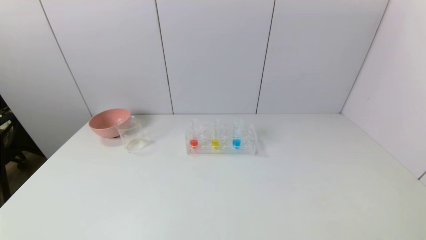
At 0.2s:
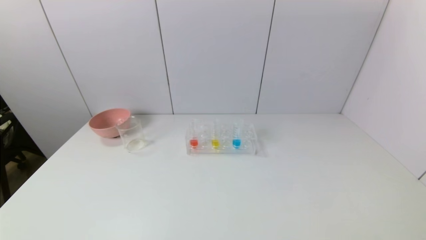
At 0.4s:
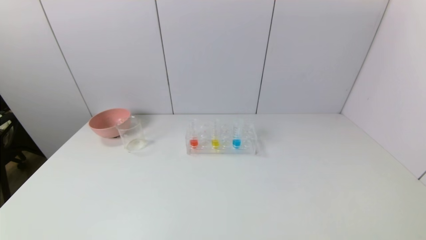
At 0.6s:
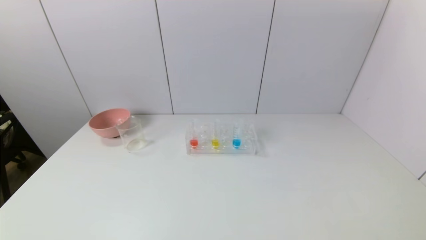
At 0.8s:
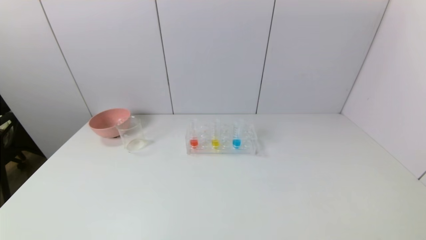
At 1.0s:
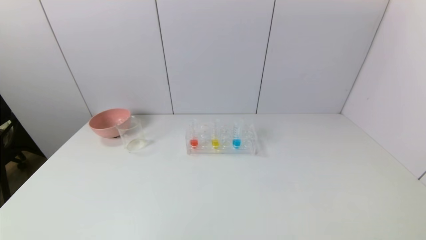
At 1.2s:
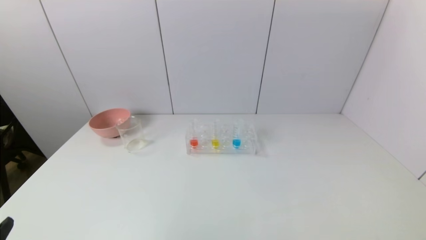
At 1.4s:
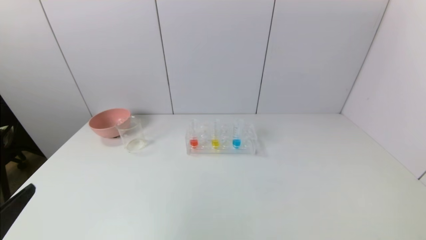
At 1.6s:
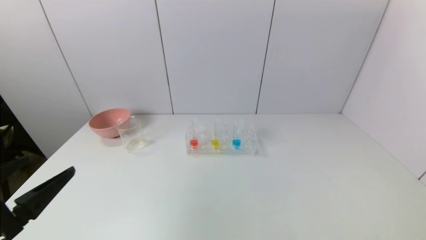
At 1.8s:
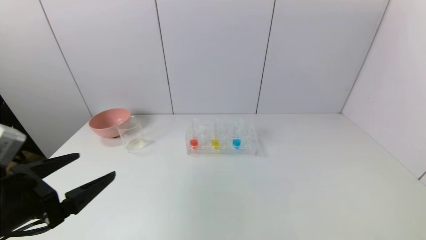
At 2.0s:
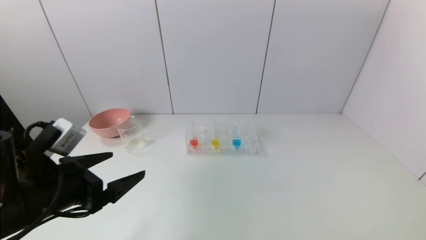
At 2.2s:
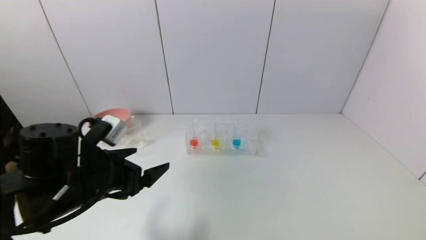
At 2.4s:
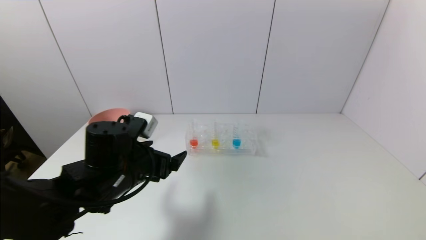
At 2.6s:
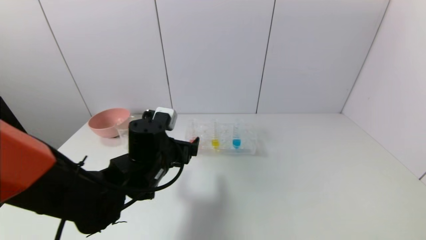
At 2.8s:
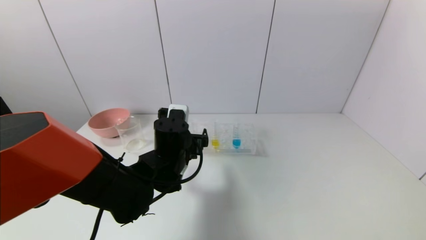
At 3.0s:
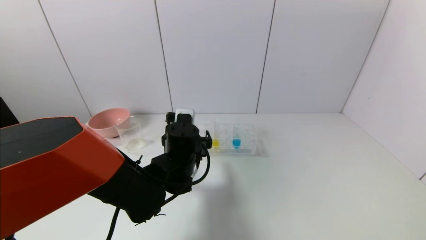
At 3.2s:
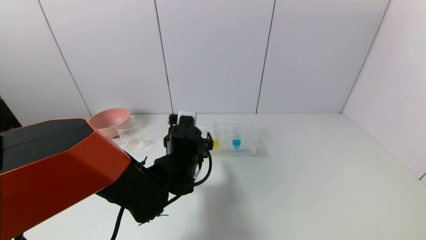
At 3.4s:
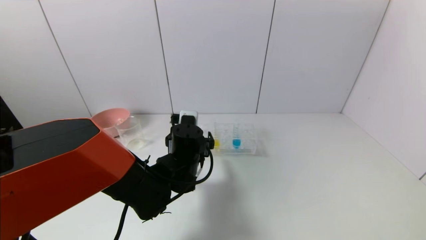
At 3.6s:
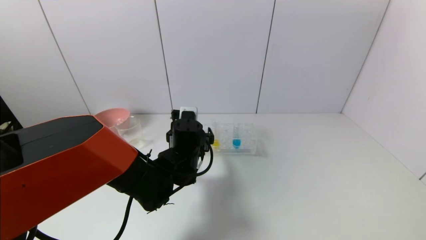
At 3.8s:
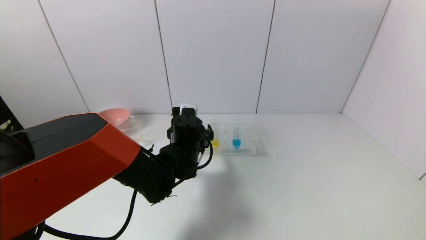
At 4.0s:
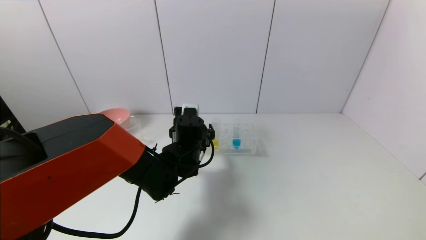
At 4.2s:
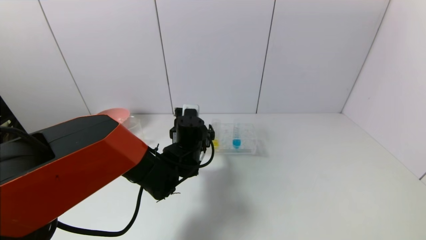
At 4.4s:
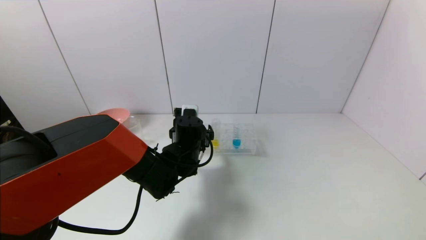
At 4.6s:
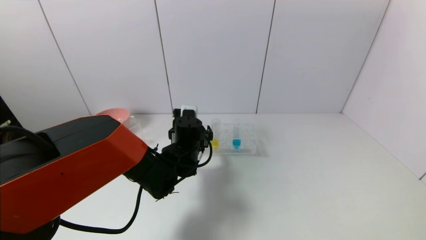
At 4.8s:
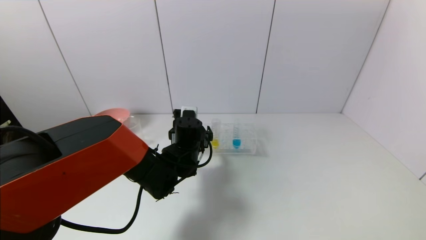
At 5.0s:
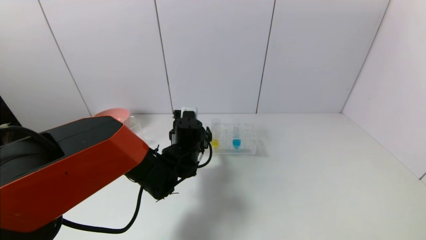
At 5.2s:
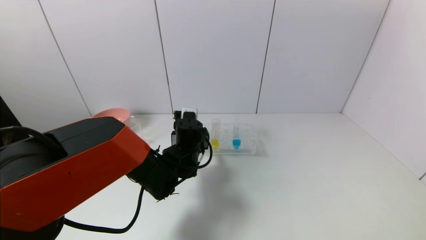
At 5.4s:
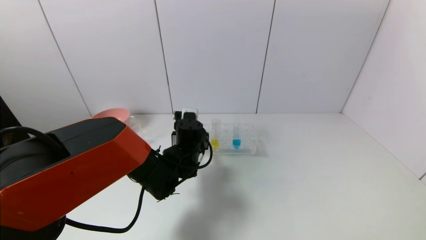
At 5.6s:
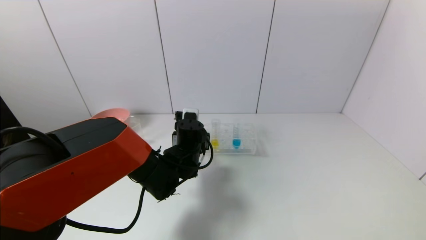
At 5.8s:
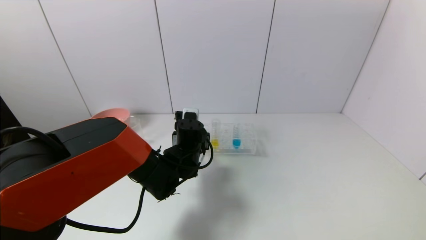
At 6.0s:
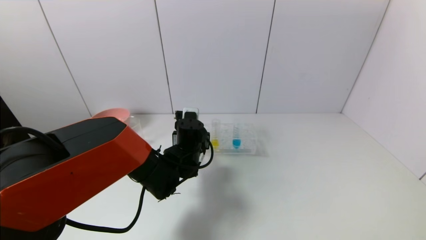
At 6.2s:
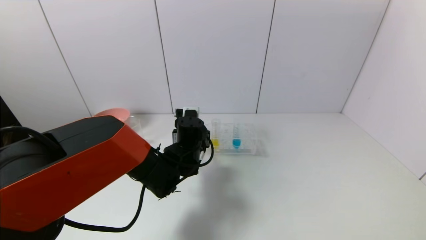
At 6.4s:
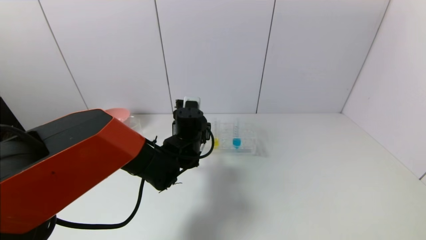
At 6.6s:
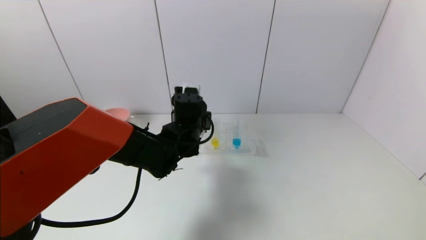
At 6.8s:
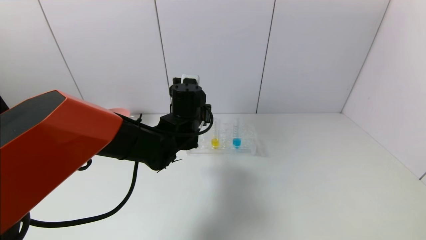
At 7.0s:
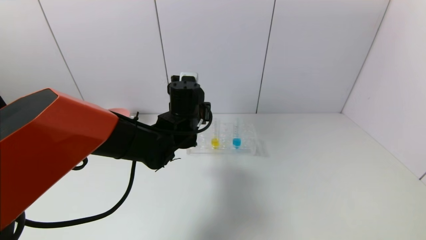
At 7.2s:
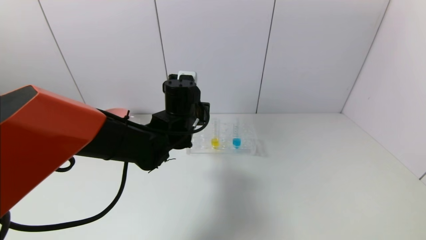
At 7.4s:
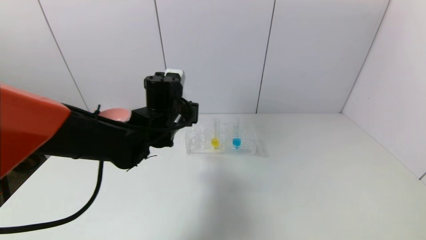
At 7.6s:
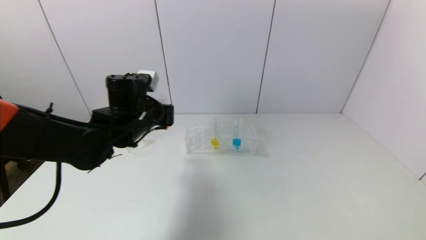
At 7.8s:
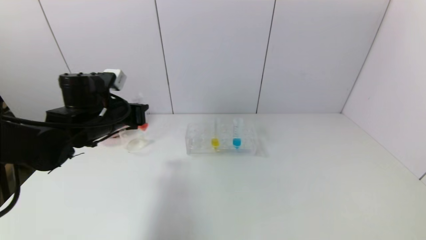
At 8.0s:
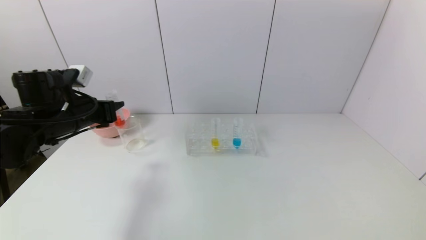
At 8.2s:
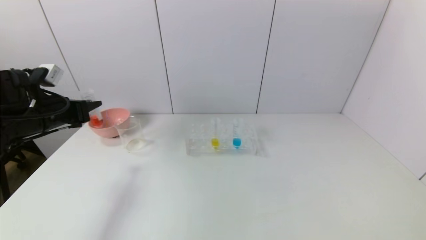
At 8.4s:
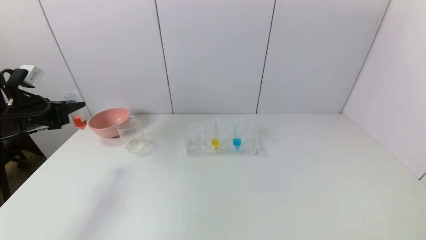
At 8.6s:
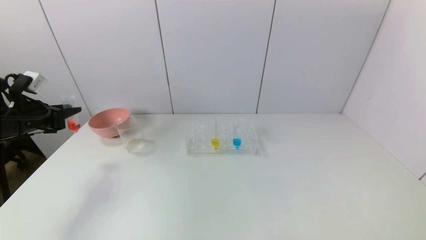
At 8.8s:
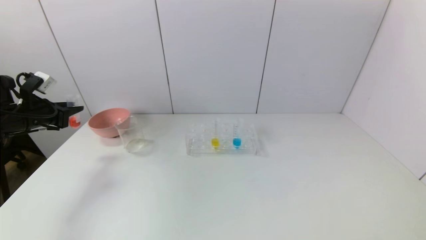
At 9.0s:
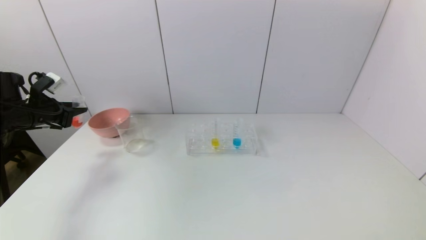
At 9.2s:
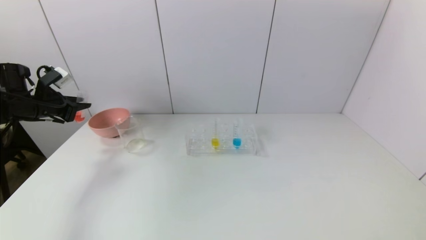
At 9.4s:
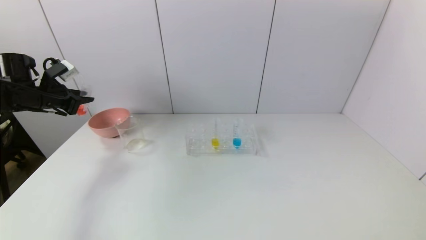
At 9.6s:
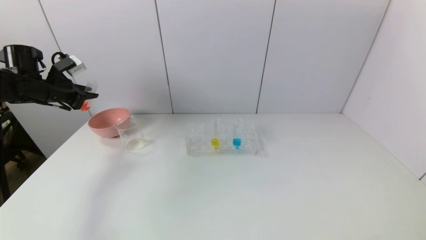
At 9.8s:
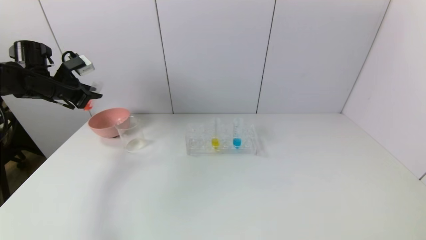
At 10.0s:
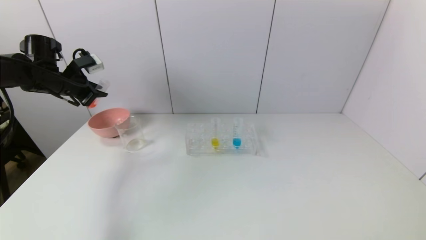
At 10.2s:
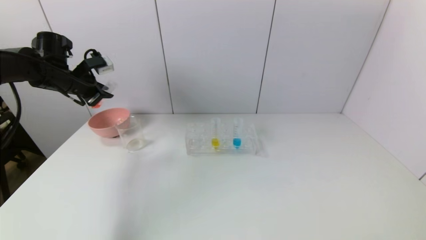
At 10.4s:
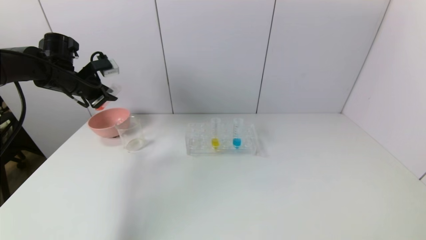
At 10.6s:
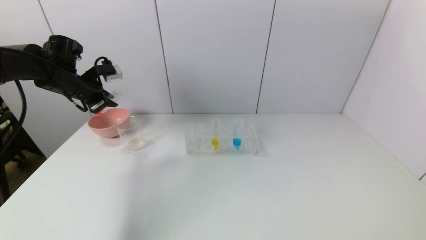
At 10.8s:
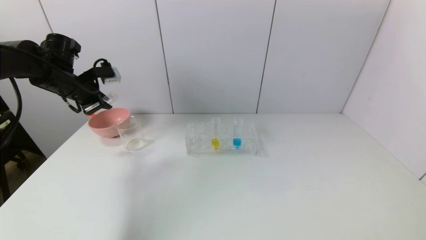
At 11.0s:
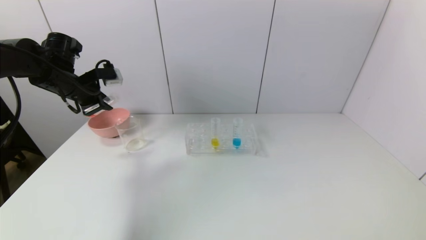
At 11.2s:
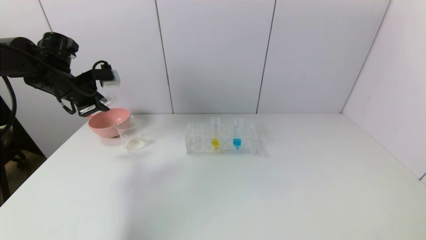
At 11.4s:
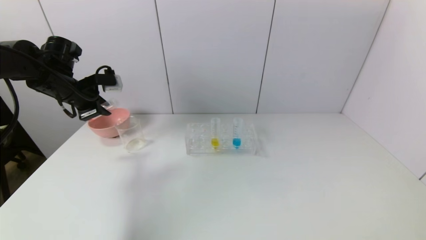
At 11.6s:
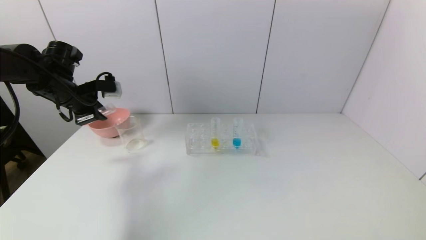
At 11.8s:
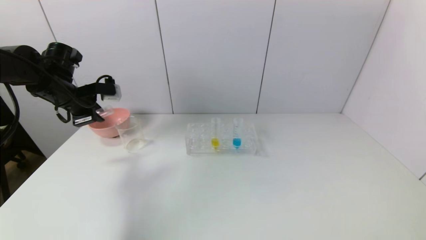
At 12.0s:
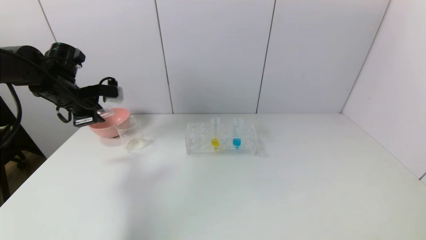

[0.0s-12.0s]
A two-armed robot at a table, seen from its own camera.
Task of the whole recording: pick up the test tube with yellow pigment and the test tube with red pigment by grippers and pour them into the beaker.
Step, 0.0s to 5.8s: Grasp the red reagent with the left gripper.
0.0s to 1.6s: The left gripper shifts roughly 15 cm upward and forward.
1.6s to 3.0s: The left gripper heads to the right and forward, covering roughly 30 cm.
3.0s to 4.4s: The left gripper travels forward by about 5 cm.
4.4s to 6.0s: The left gripper closes.
6.0s to 7.6s: The left gripper moves upward and to the left, about 15 cm.
7.6s to 9.0s: The left gripper heads to the left, covering about 30 cm.
9.0s to 10.4s: The left gripper moves to the right, upward and forward, approximately 15 cm.

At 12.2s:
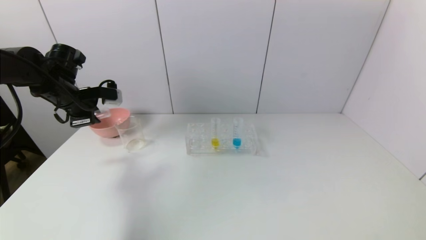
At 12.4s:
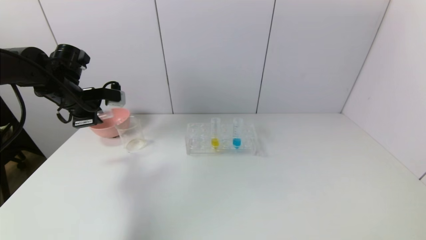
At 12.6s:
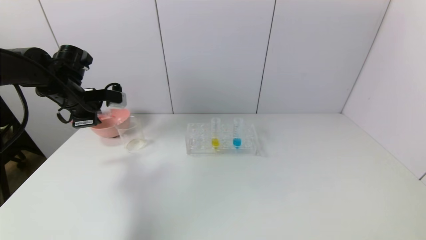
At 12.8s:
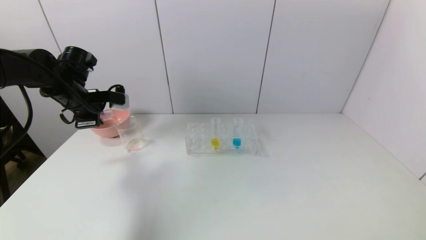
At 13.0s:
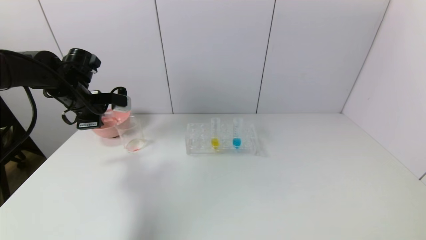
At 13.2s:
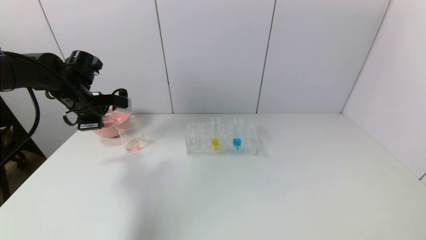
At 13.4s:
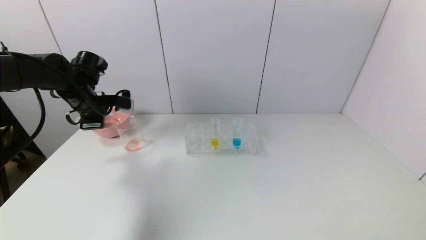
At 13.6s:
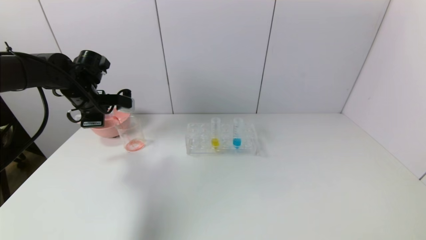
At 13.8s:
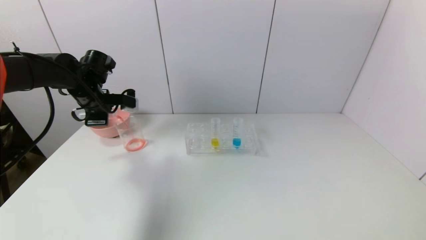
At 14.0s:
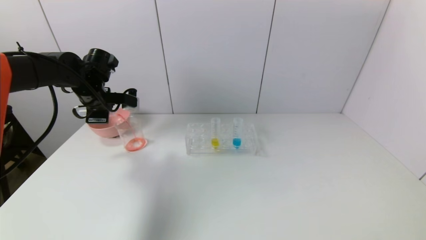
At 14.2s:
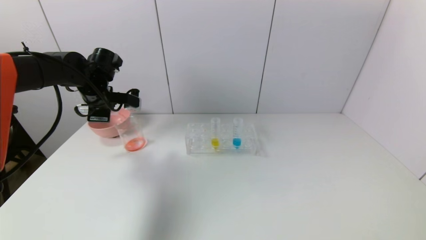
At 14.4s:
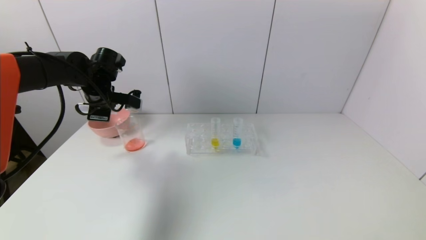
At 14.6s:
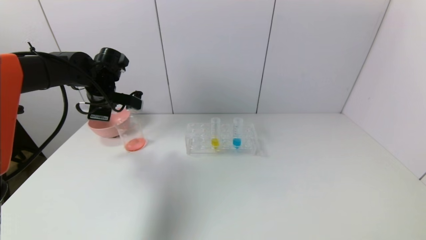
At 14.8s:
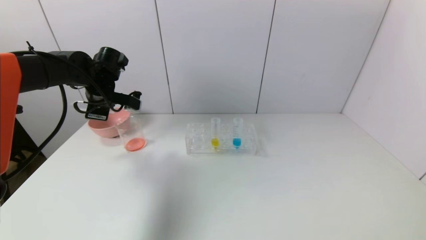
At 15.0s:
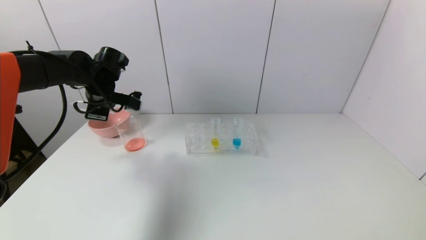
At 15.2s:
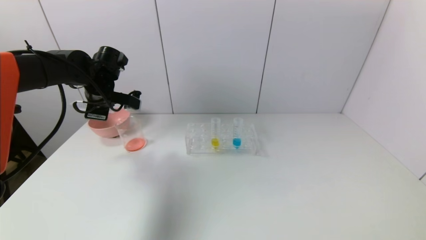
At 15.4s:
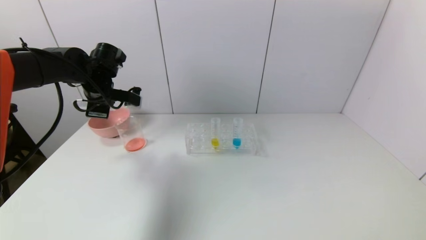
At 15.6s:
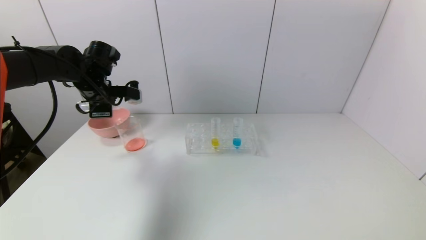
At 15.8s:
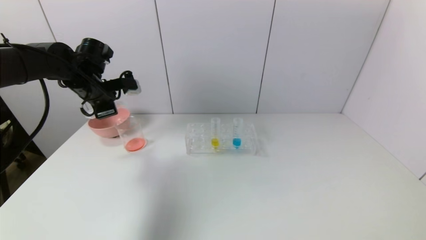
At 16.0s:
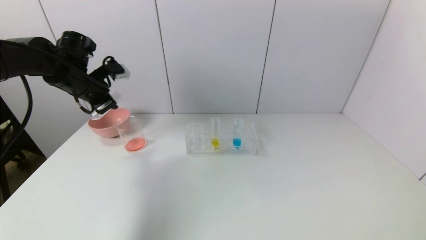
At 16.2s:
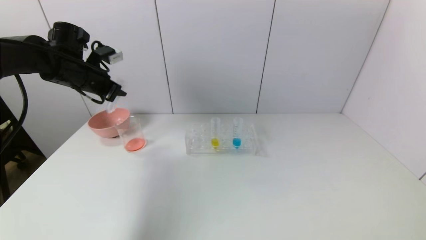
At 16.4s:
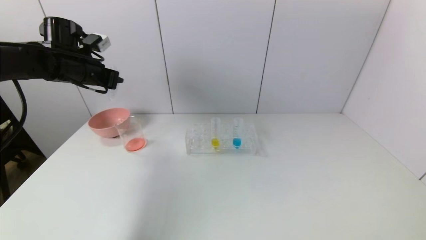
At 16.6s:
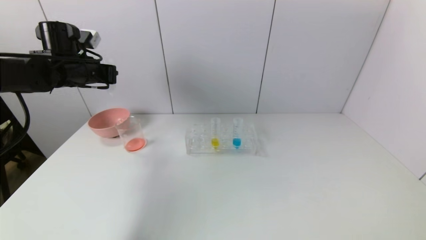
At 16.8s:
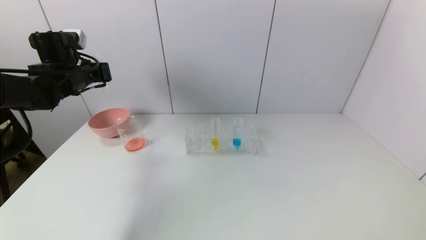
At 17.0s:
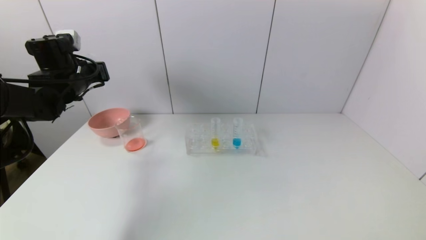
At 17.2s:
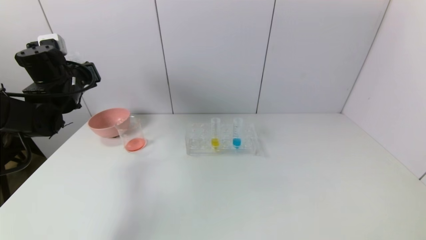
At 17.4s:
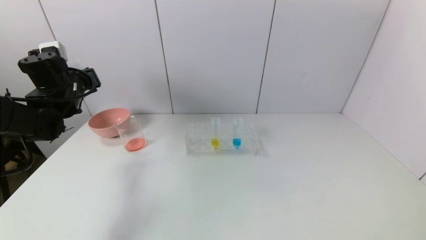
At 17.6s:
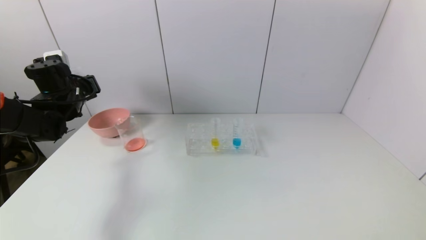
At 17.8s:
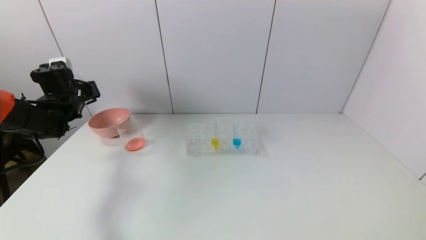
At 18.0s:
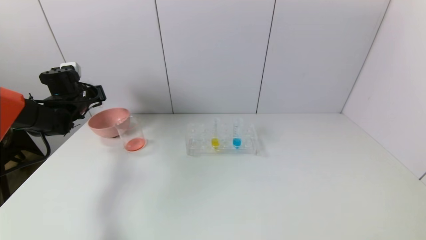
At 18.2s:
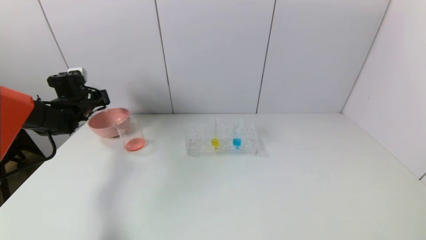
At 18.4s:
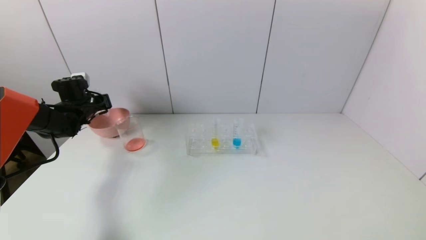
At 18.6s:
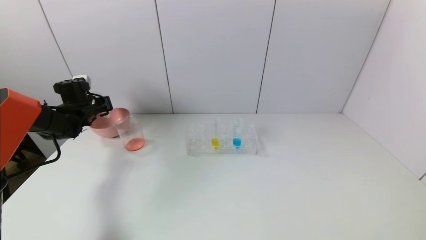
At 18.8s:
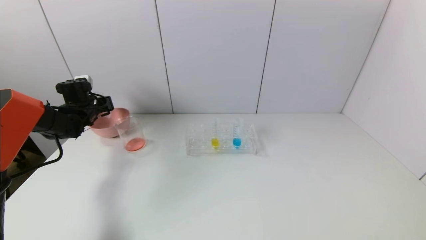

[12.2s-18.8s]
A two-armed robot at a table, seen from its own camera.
Task of the whole recording: pick up the test tube with yellow pigment and the test tube with red pigment by grippers and pour them into the beaker.
Step, 12.2s to 15.4s: Pour the red reagent into the graduated cylinder with the left gripper.
12.2s to 13.8s: The grippers move only a little.
13.8s to 15.4s: The grippers make only small movements.
15.4s to 17.2s: The left gripper shifts some 5 cm to the left.
17.2s to 18.8s: The left gripper heads downward, forward and to the left, covering approximately 15 cm.
